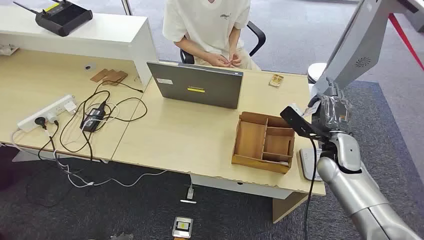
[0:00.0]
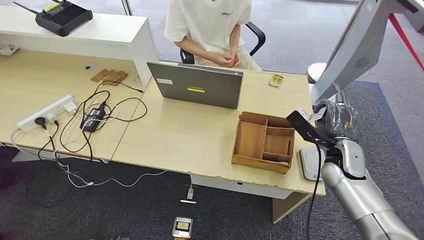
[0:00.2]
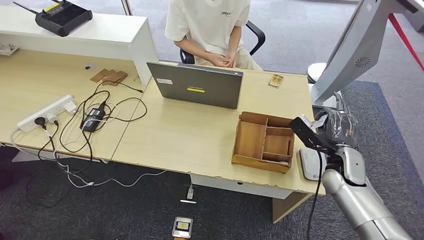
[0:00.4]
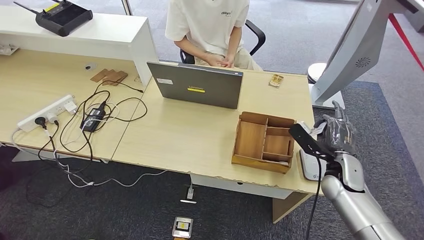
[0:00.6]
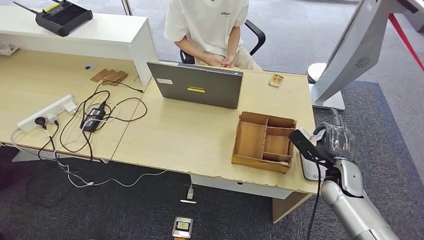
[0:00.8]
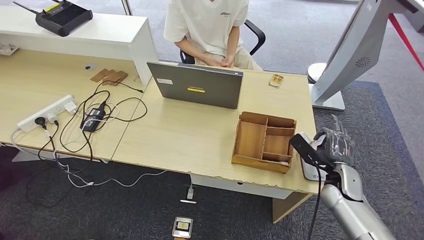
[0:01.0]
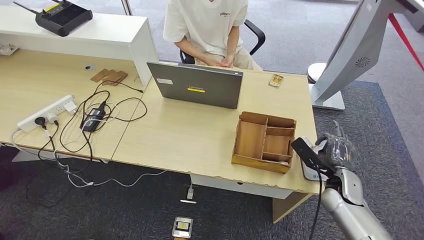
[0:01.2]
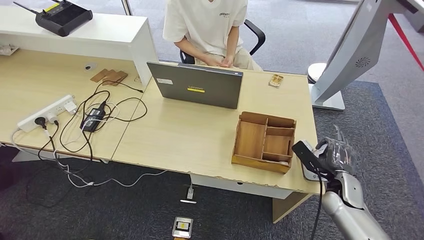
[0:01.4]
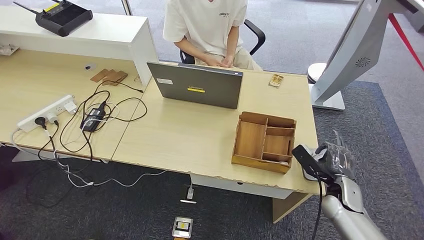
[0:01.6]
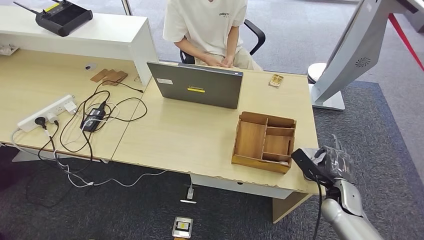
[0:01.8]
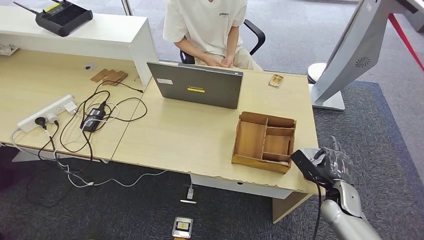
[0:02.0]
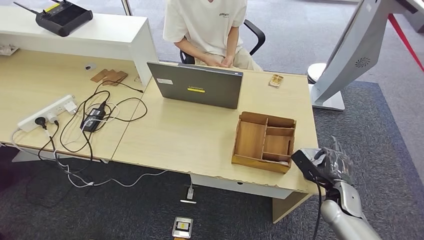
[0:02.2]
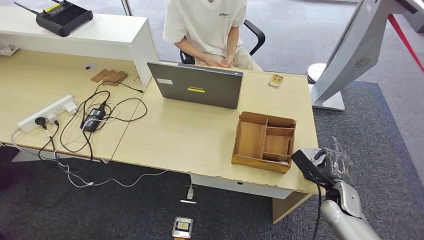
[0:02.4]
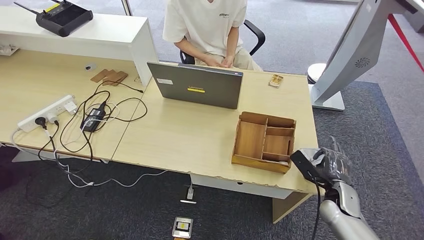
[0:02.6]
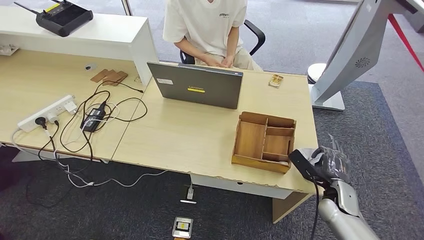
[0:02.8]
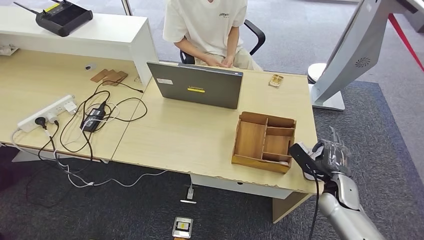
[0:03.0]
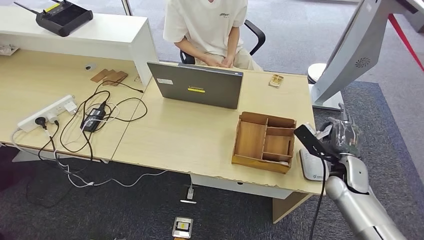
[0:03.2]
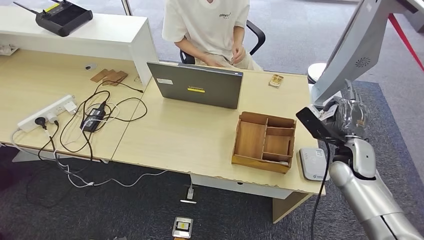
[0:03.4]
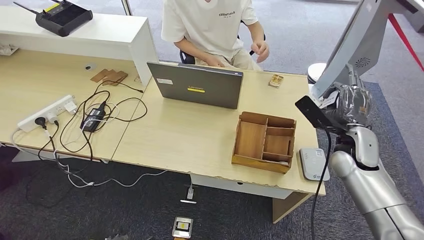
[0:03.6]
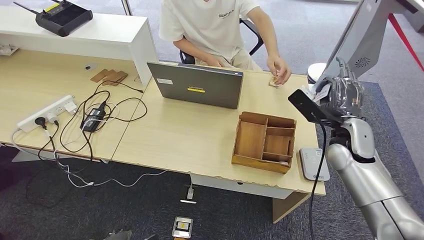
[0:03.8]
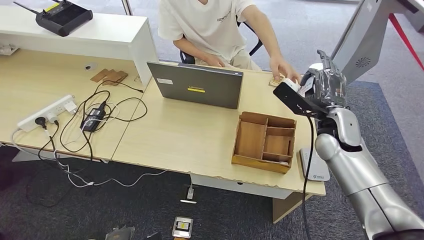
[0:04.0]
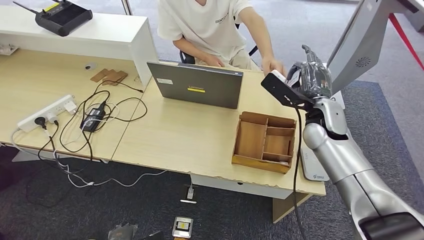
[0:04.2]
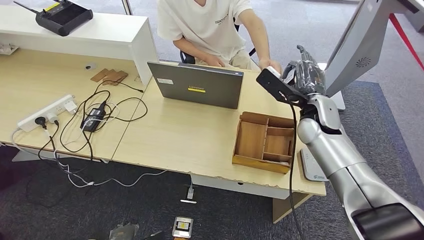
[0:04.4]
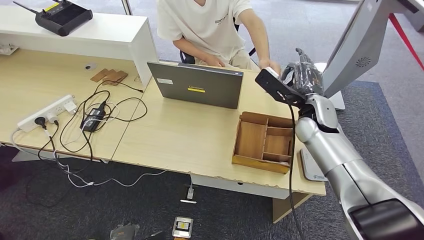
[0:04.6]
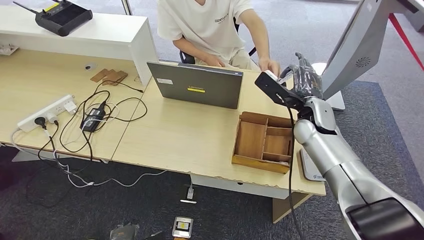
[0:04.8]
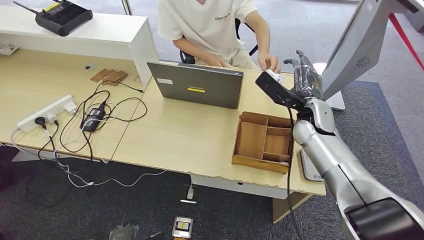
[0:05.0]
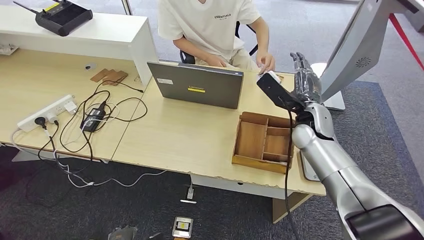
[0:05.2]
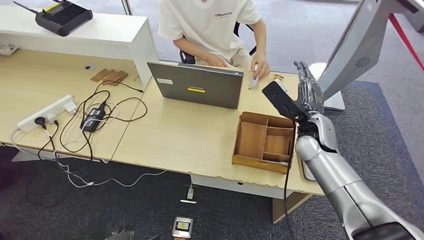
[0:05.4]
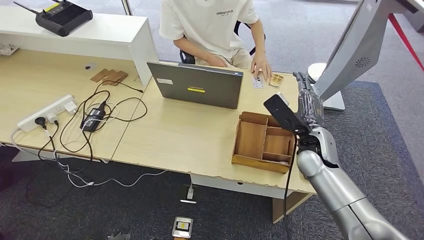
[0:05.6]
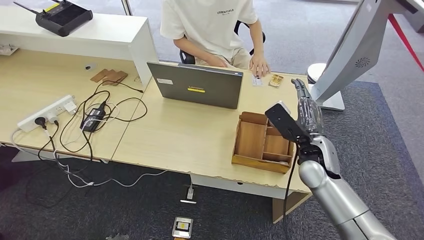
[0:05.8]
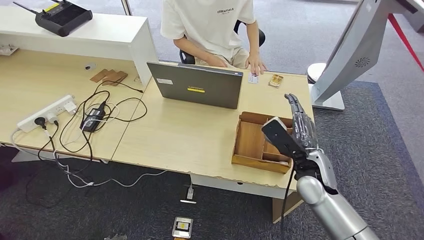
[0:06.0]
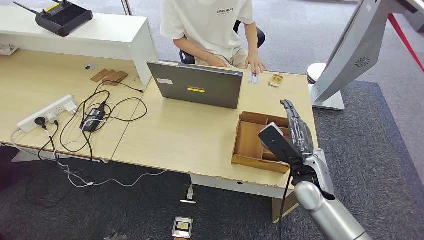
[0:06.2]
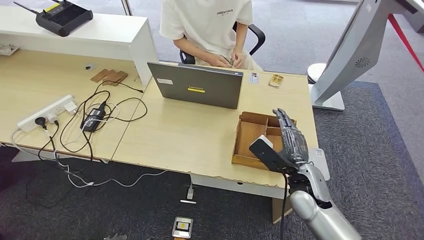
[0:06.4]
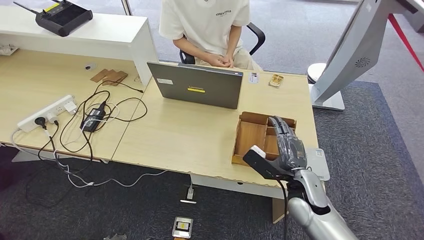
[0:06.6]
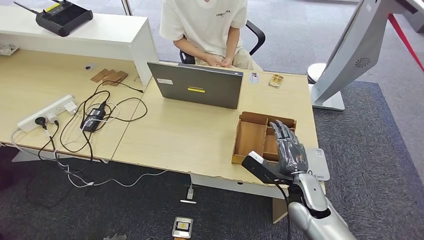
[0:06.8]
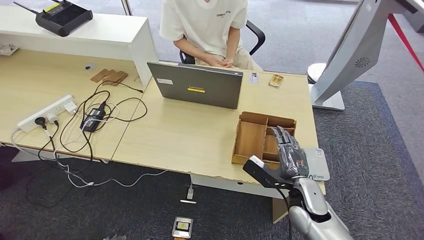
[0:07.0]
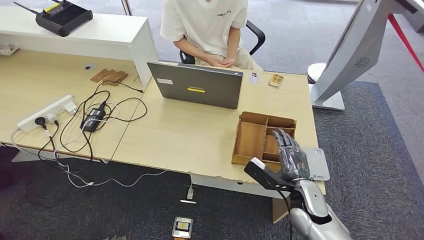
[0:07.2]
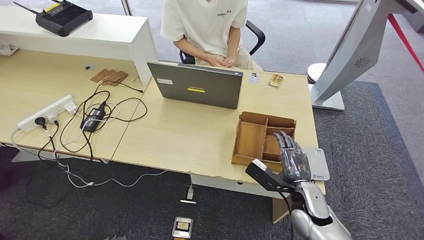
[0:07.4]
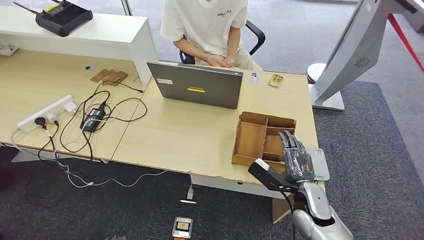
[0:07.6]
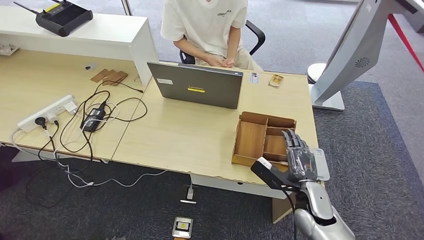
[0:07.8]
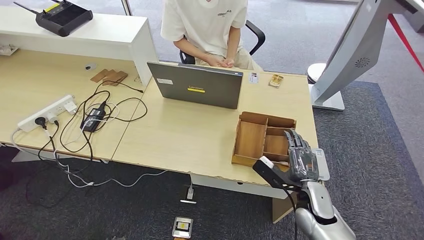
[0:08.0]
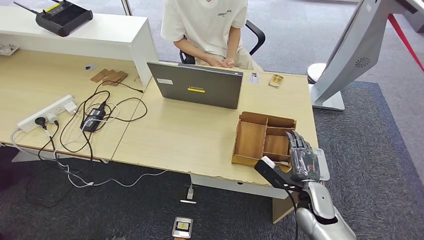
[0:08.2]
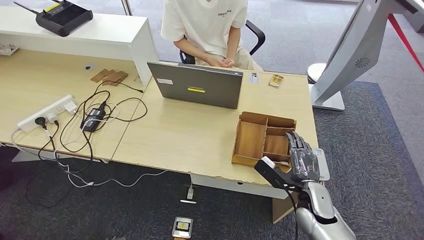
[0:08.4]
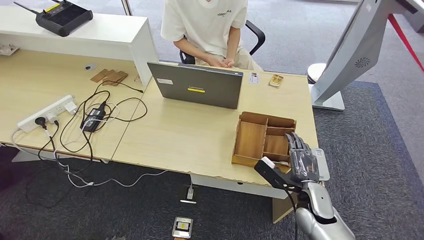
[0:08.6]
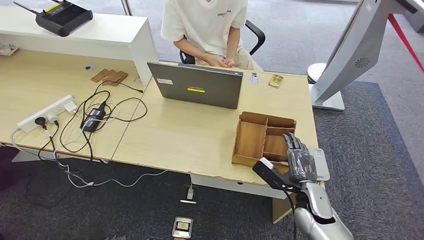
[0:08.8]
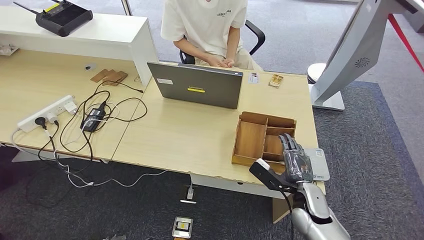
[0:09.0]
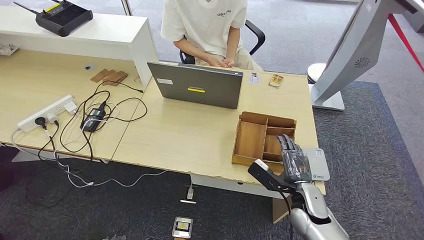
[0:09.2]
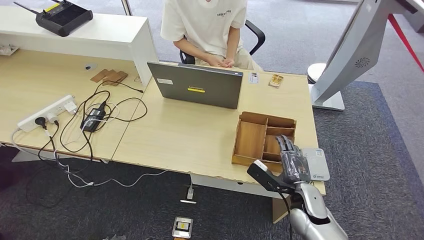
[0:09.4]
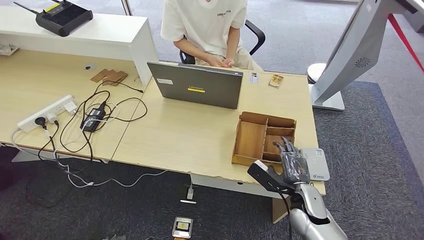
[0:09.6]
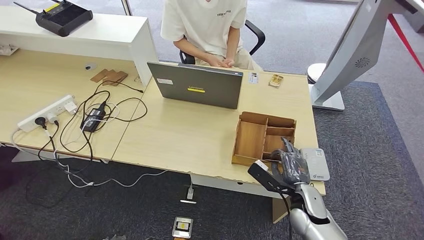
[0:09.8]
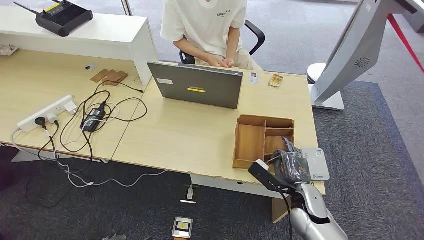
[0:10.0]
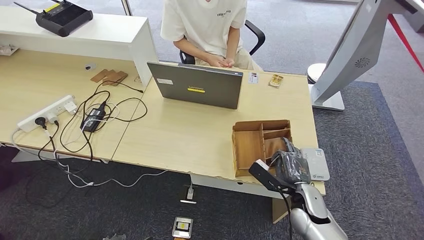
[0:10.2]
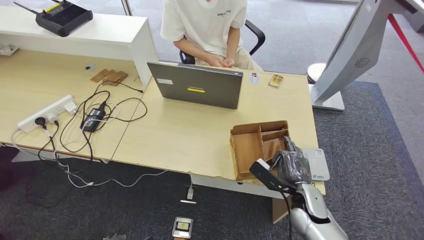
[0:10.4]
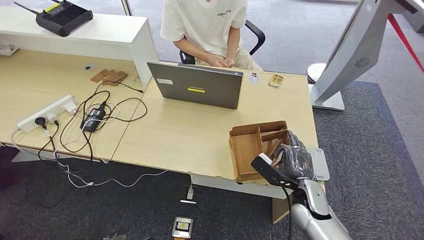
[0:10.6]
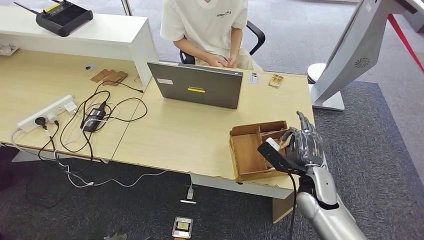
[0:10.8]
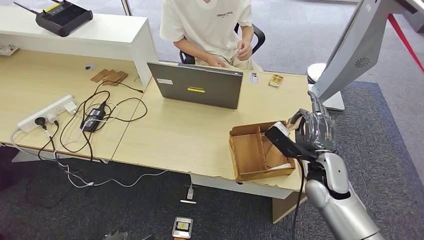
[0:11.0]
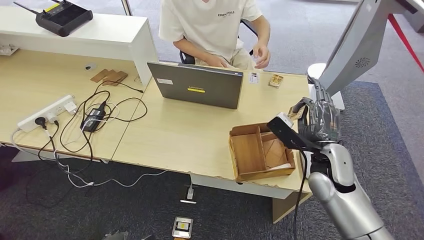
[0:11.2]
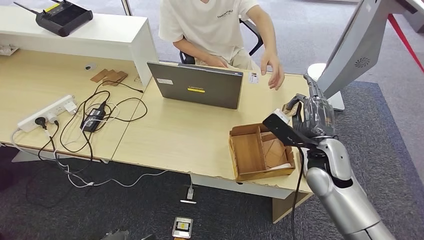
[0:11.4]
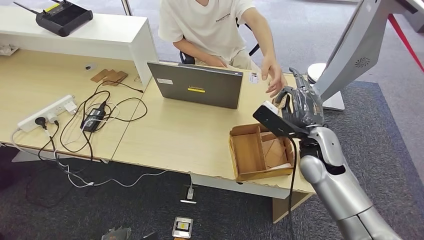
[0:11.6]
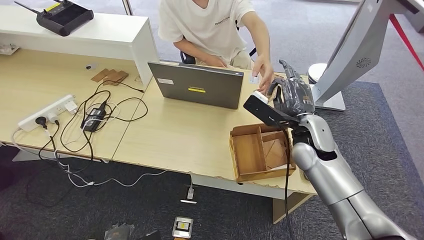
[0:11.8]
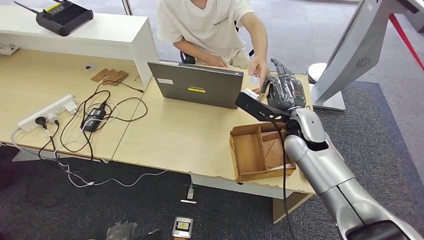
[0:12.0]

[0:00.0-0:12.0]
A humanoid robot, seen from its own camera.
Step, 0:00.0 to 0:01.2: Take the ID card from the person's hand.
Step, 0:01.4 to 0:02.6: Place the ID card on the card reader.
Step, 0:02.8 to 0:05.8: Hand the ID card to the person.
0:01.6 to 0:03.0: The hands move only a little.
0:03.0 to 0:04.4: The left hand is displaced forward by approximately 5 cm; the right hand travels upward, forward and to the left by roughly 25 cm.
0:04.4 to 0:06.0: The right hand heads backward and downward, covering roughly 15 cm.
0:06.0 to 0:07.6: The right hand heads downward and backward, covering some 10 cm.
0:07.6 to 0:09.0: The hands move only a little.
0:09.0 to 0:10.4: Both hands stay put.
0:10.4 to 0:12.0: The right hand goes roughly 20 cm upward and forward.

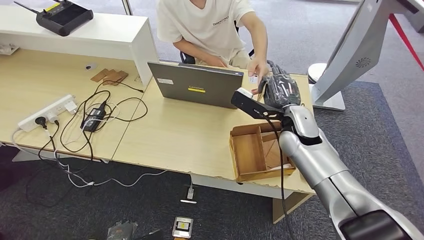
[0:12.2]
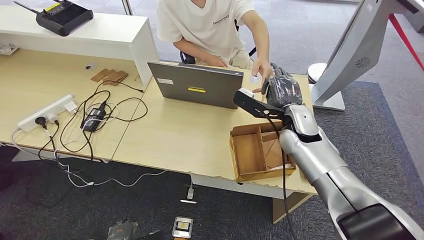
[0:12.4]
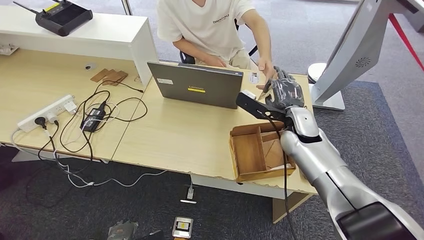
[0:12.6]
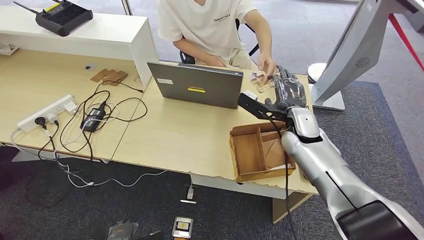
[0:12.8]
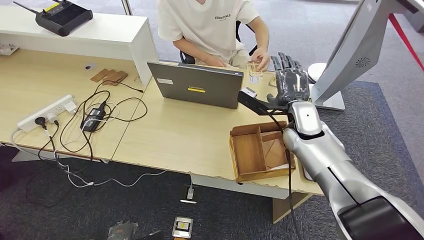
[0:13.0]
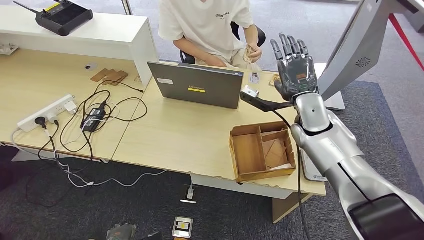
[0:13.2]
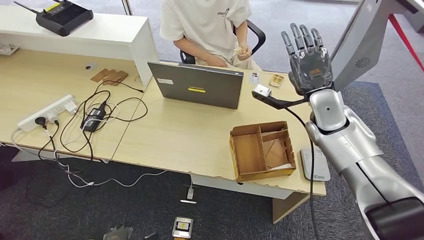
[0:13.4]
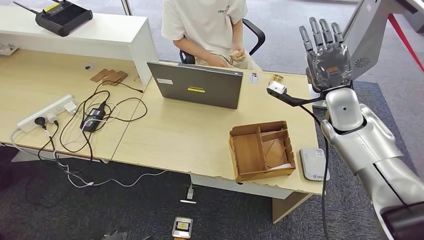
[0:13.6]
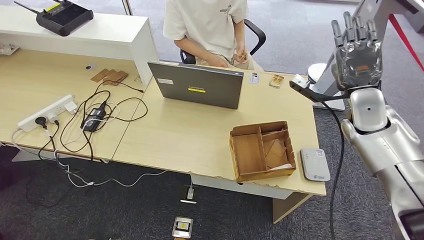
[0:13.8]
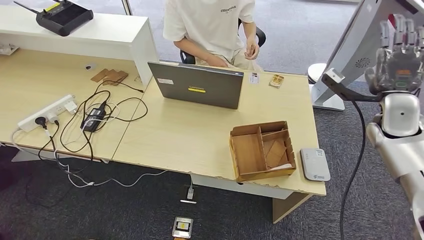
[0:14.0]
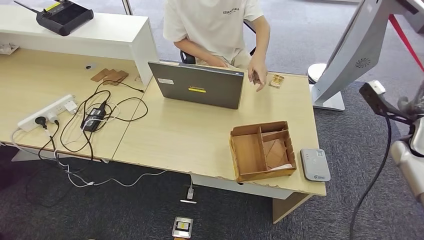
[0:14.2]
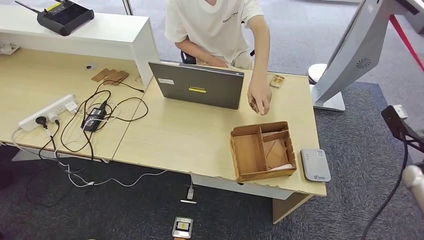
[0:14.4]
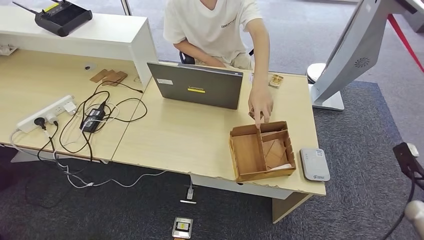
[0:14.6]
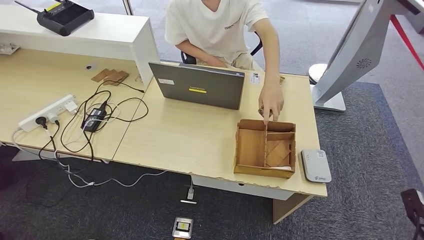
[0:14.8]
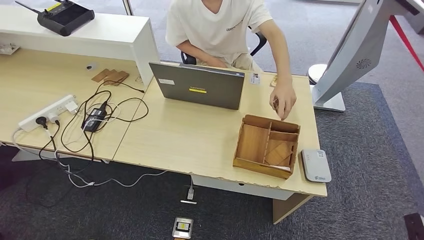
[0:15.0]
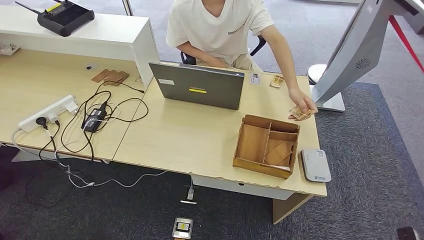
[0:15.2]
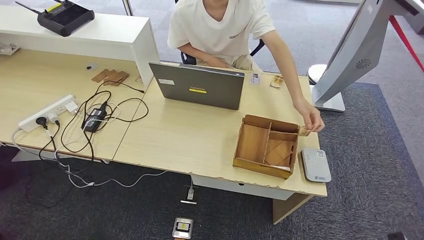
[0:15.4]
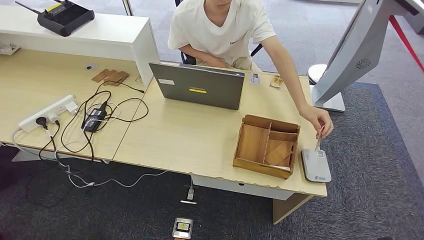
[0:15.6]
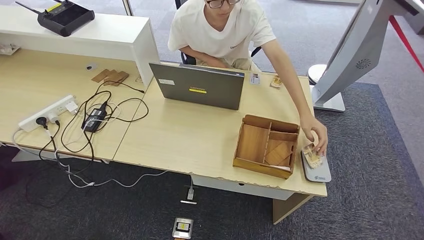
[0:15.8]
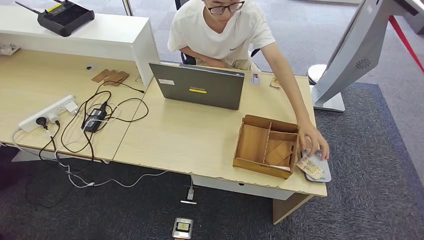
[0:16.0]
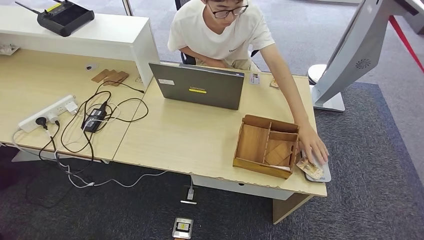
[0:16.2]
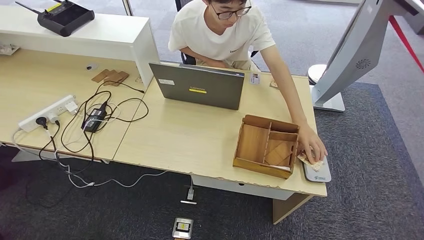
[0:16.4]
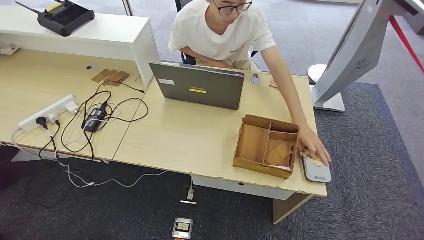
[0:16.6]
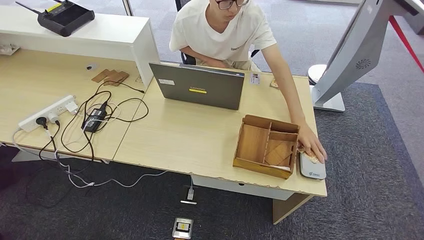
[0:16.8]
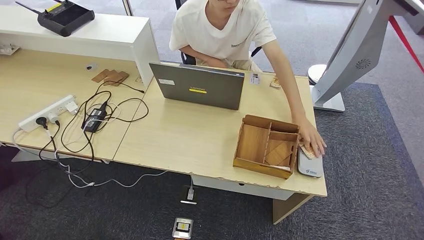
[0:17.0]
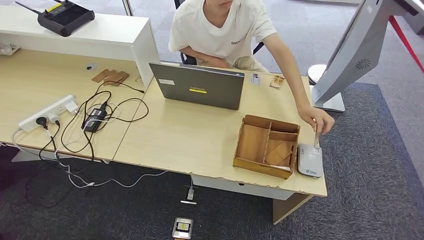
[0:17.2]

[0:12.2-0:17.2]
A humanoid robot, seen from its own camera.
Step, 0:14.0 to 0:17.2: Hand the room key to the person.
0:12.2 to 0:13.8: The left hand shifts about 5 cm backward. The right hand moves to the right, roughly 15 cm.
0:13.8 to 0:15.6: The right hand goes some 50 cm downward, backward and to the right.
0:15.6 to 0:17.2: The right hand is displaced to the left by roughly 10 cm.
